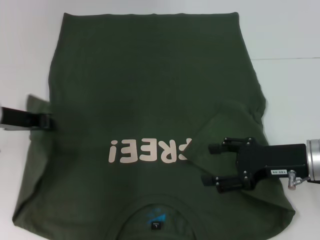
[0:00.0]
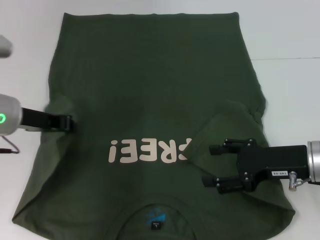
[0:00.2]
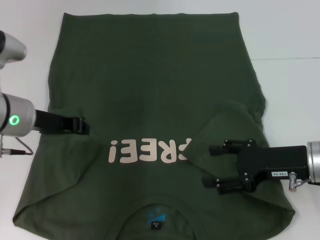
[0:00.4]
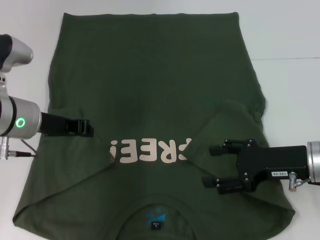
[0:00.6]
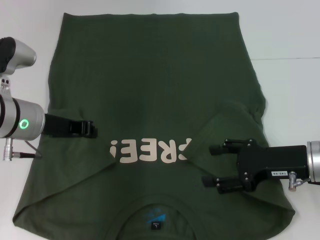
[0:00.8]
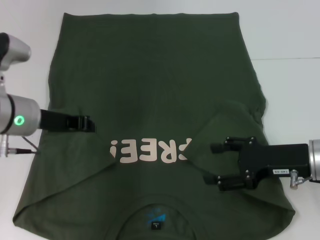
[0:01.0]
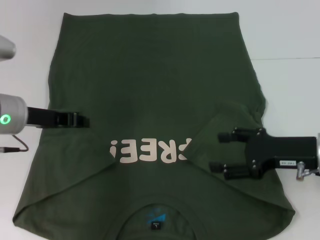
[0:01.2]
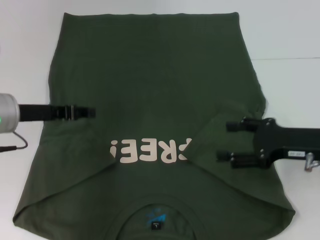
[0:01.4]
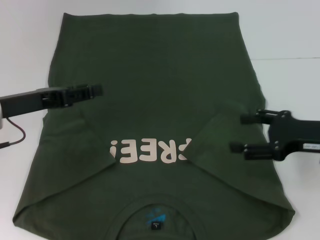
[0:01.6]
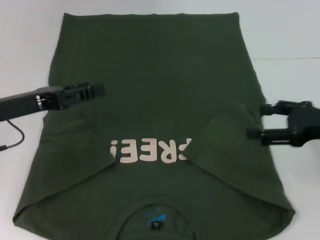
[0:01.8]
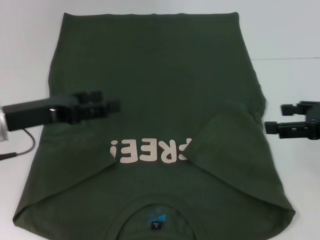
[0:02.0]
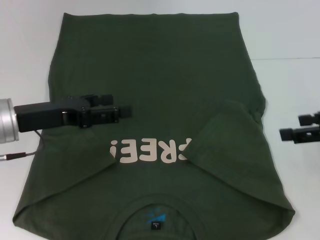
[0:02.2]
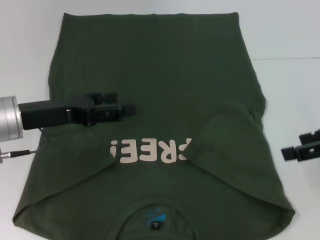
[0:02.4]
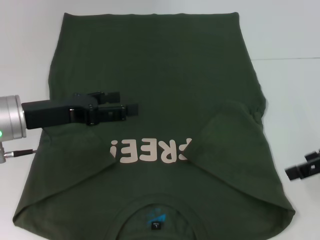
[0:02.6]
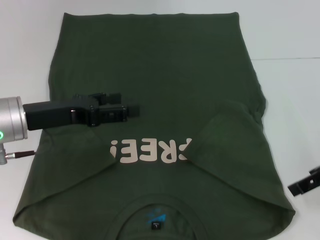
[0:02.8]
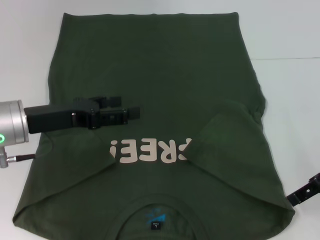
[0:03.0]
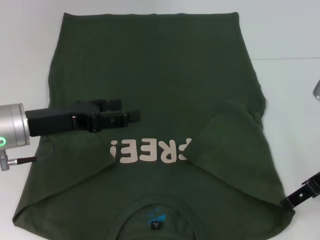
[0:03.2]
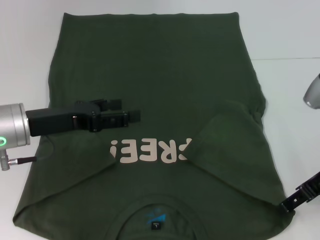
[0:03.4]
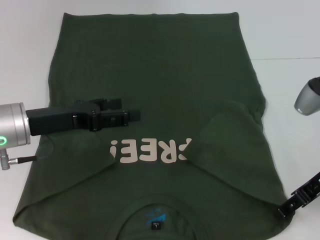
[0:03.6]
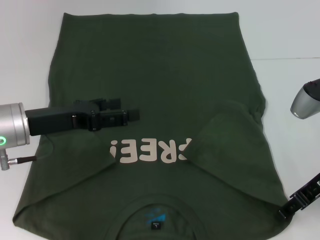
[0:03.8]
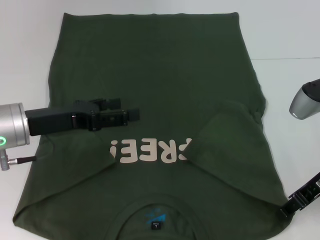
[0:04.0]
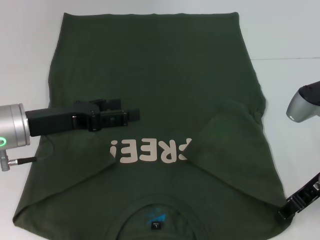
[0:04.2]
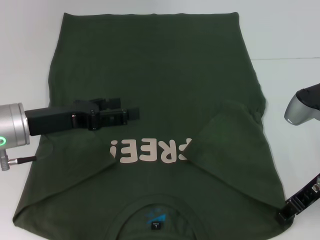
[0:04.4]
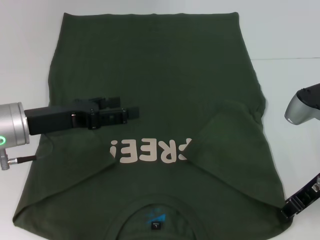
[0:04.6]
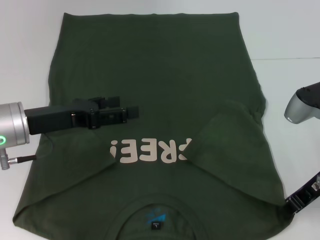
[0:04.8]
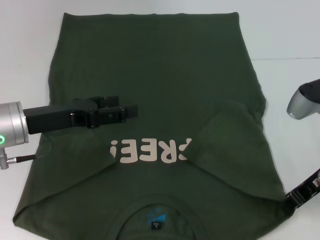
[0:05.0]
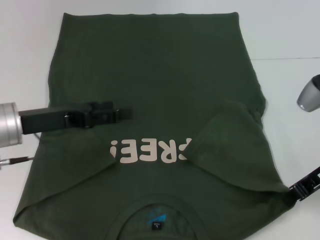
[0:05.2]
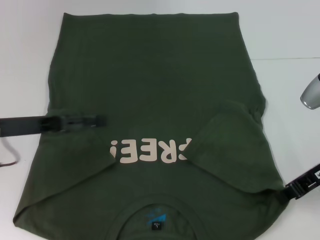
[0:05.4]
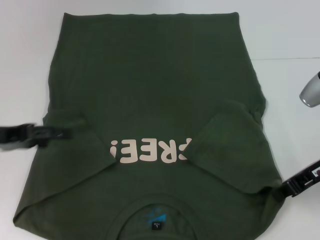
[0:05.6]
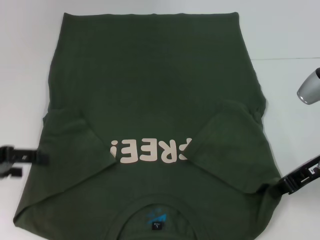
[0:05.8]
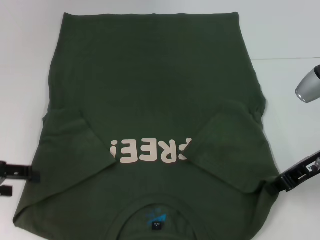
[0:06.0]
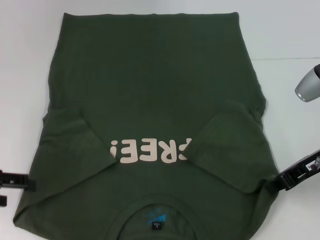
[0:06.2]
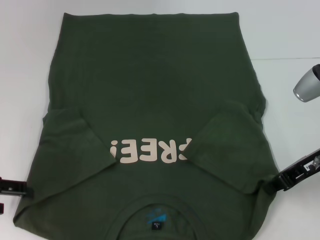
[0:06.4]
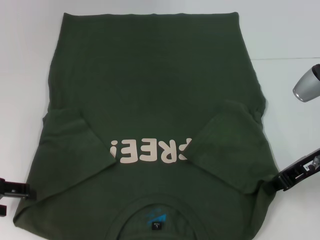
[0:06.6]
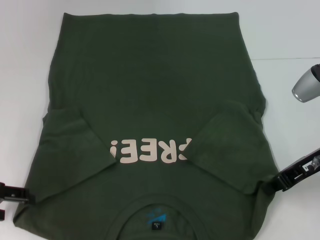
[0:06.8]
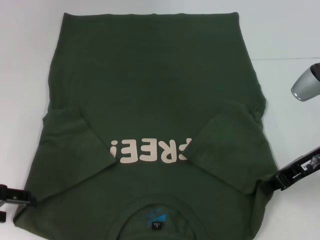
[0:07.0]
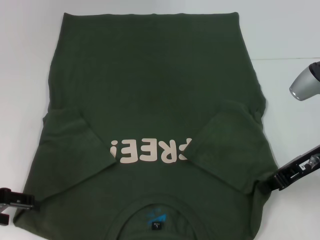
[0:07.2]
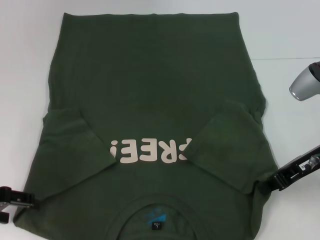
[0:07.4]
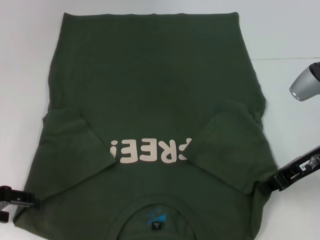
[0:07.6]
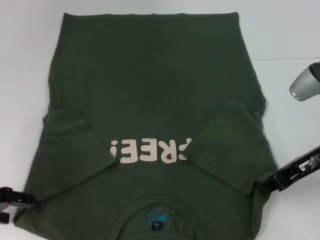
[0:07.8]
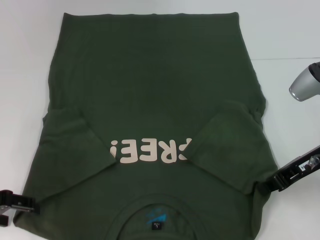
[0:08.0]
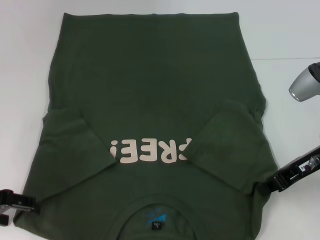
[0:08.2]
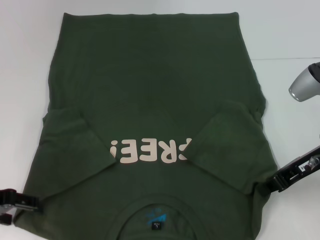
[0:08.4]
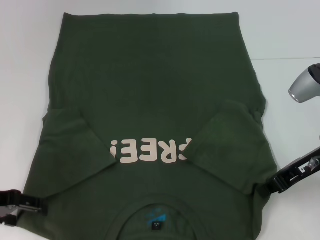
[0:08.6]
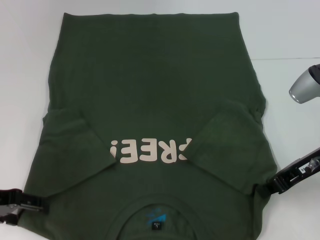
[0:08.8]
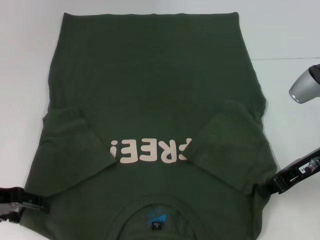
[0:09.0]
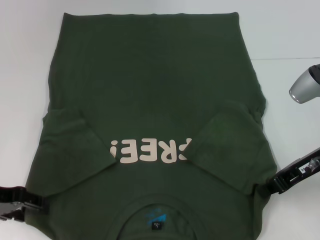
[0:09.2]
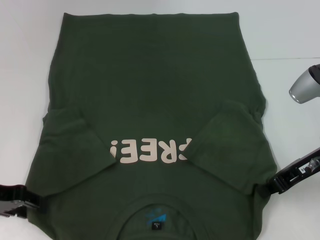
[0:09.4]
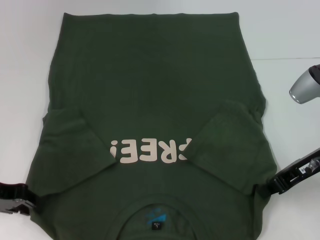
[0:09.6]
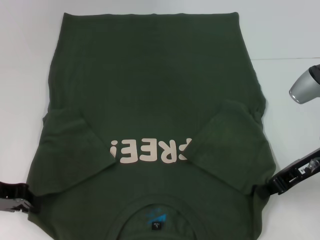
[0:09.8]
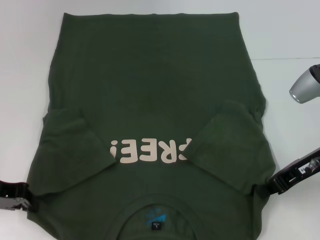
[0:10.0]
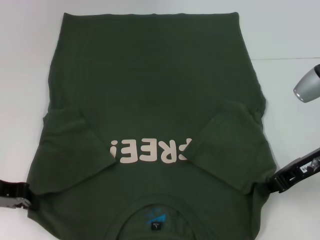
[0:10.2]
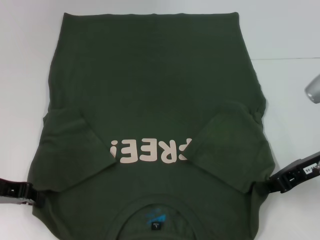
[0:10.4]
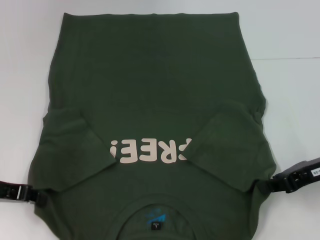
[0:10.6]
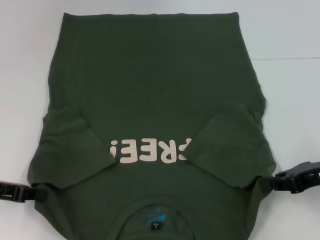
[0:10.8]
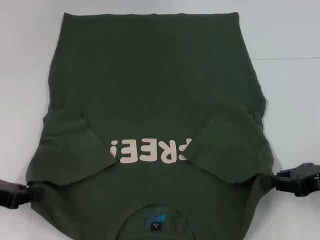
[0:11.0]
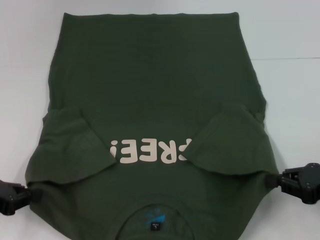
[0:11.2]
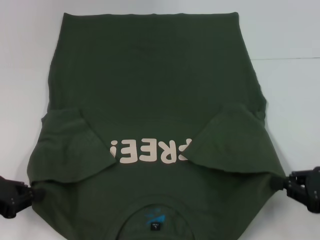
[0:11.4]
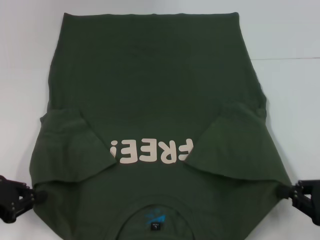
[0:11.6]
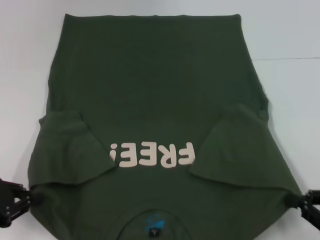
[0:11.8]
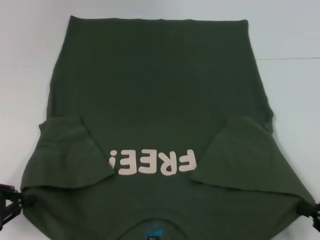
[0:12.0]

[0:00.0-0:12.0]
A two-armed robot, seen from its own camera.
Step, 0:00.8 to 0:05.8: Grab the bottom right corner with your right hand.
Step, 0:06.0 to 0:10.2: Grab the bottom left corner with your left hand.
0:00.0 to 0:01.6: The right gripper moves roughly 5 cm.
0:01.6 to 0:03.0: The left gripper opens. The right gripper heads upward, covering approximately 5 cm.
0:03.0 to 0:04.4: The right gripper changes place by some 5 cm, and closes.
0:04.4 to 0:06.0: The right gripper closes, while the left gripper goes approximately 10 cm to the left.
0:06.0 to 0:09.0: The grippers move only a little.
0:09.0 to 0:10.4: The left gripper closes up.
0:10.4 to 0:12.0: The left gripper heads backward, covering approximately 5 cm. Meanwhile the right gripper is displaced backward, downward and to the right by some 20 cm.

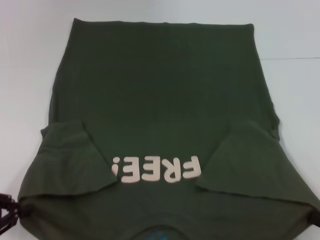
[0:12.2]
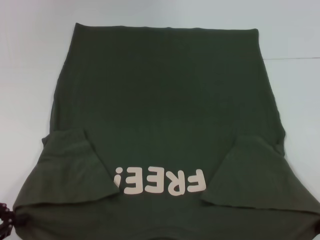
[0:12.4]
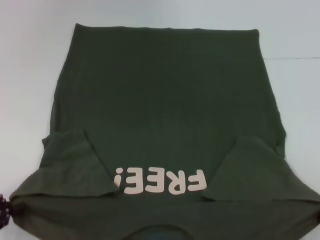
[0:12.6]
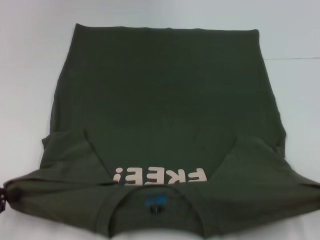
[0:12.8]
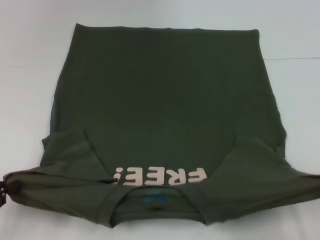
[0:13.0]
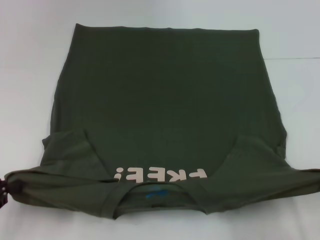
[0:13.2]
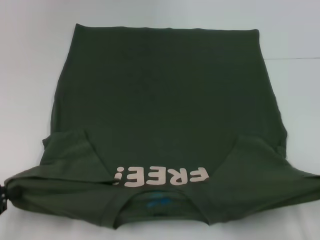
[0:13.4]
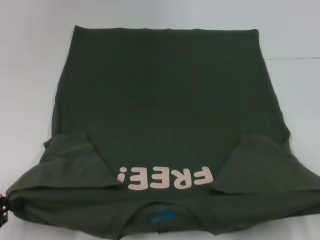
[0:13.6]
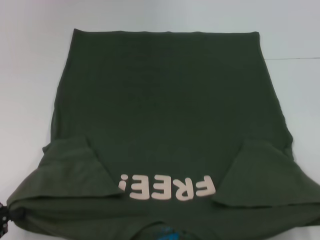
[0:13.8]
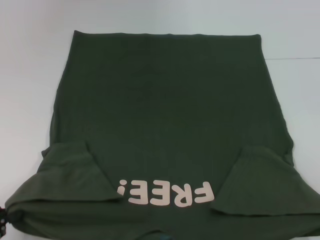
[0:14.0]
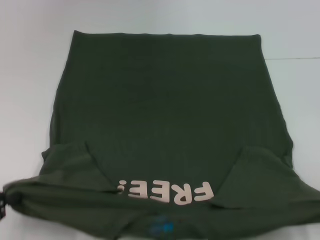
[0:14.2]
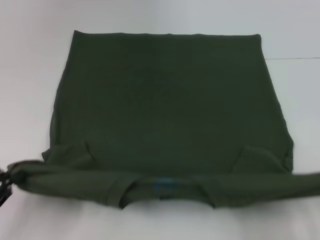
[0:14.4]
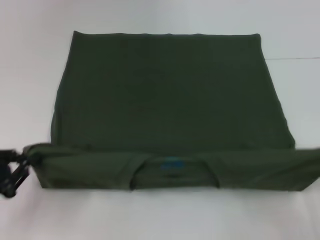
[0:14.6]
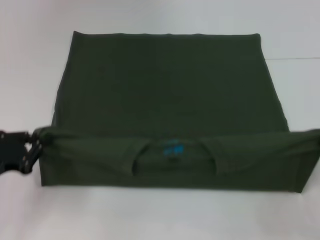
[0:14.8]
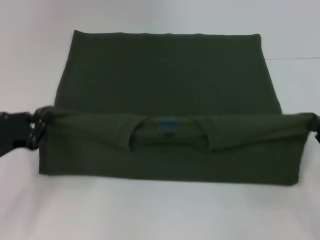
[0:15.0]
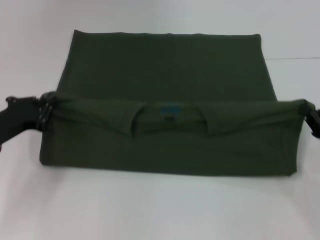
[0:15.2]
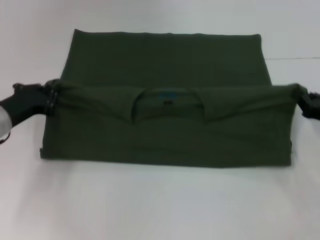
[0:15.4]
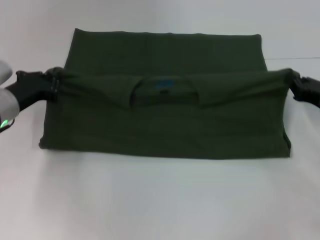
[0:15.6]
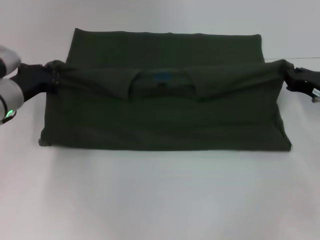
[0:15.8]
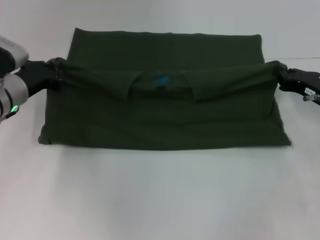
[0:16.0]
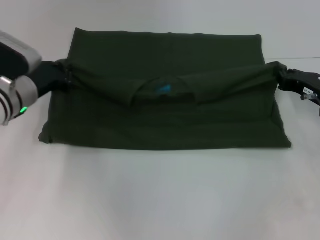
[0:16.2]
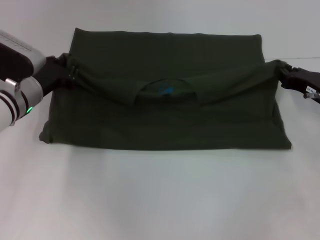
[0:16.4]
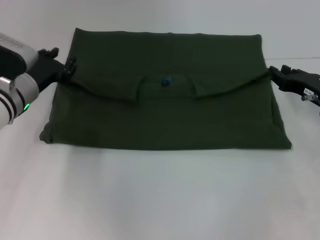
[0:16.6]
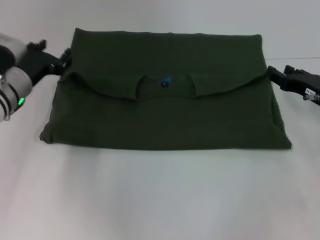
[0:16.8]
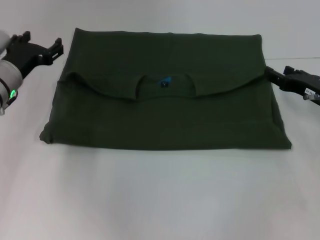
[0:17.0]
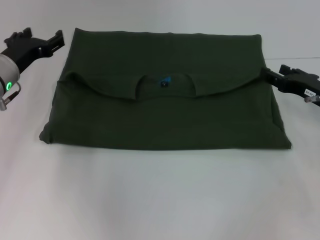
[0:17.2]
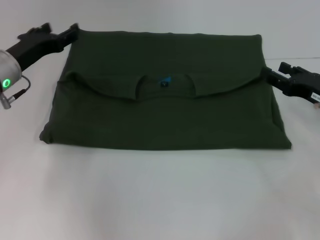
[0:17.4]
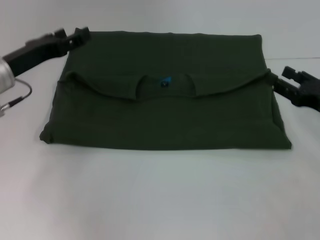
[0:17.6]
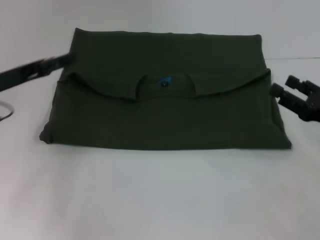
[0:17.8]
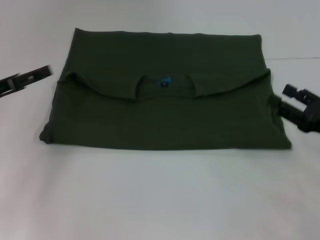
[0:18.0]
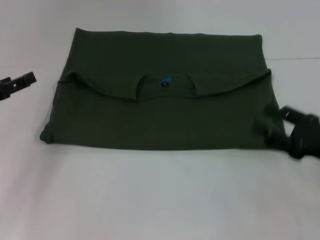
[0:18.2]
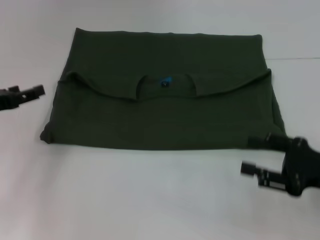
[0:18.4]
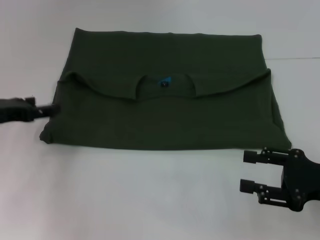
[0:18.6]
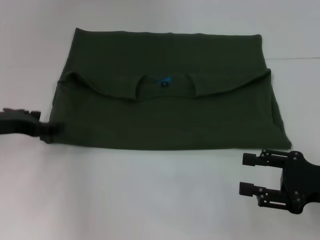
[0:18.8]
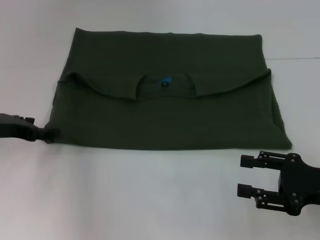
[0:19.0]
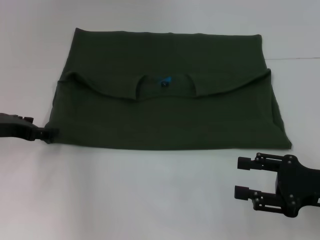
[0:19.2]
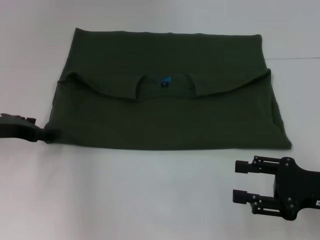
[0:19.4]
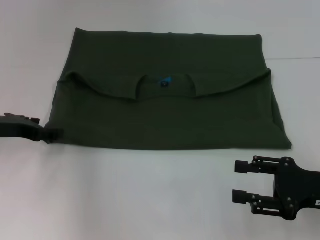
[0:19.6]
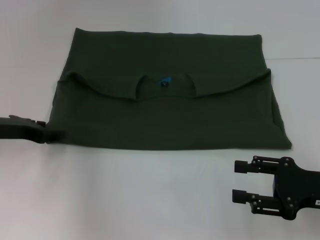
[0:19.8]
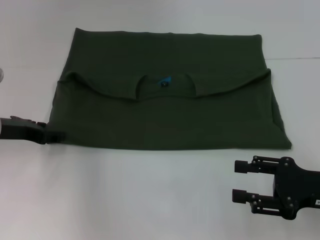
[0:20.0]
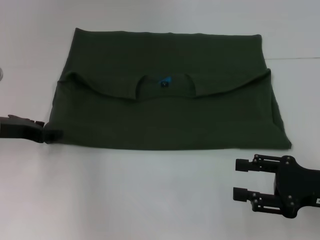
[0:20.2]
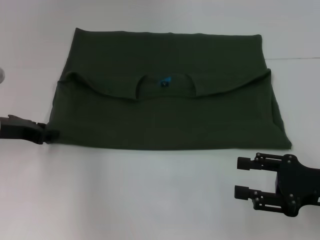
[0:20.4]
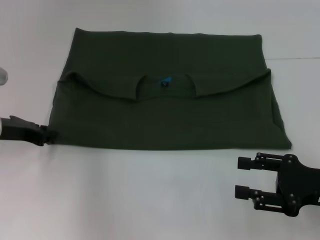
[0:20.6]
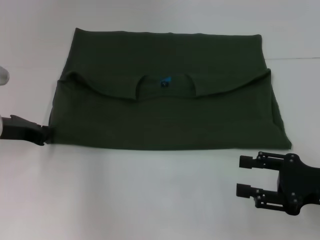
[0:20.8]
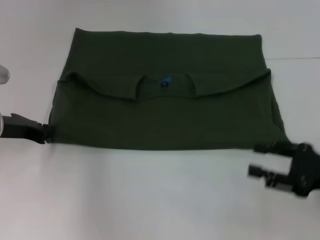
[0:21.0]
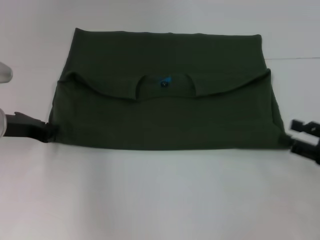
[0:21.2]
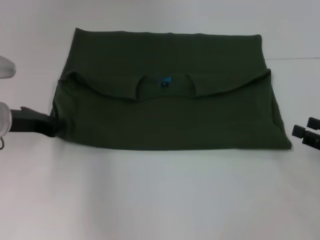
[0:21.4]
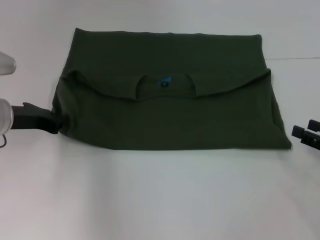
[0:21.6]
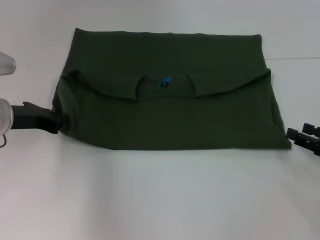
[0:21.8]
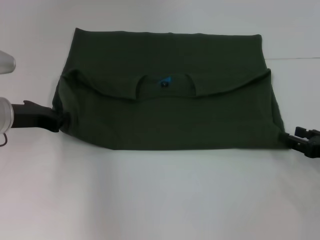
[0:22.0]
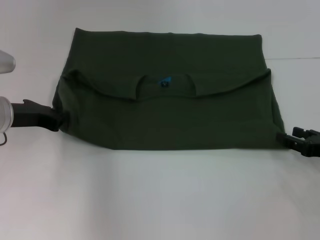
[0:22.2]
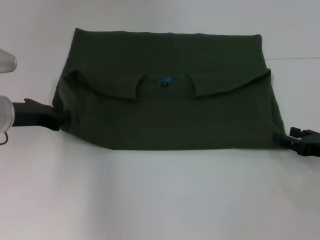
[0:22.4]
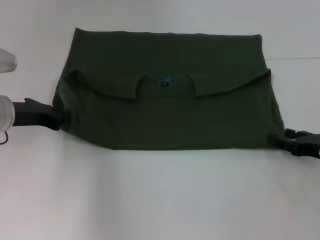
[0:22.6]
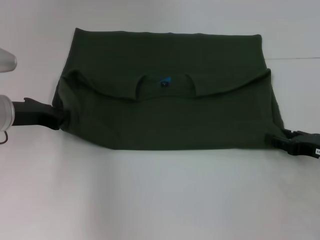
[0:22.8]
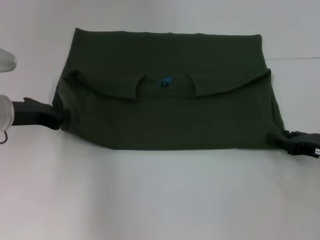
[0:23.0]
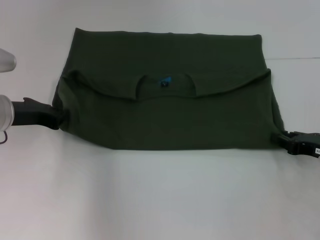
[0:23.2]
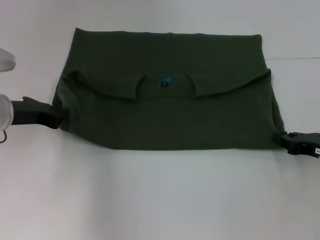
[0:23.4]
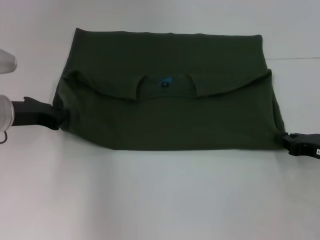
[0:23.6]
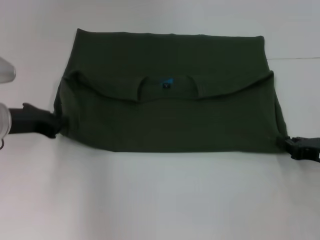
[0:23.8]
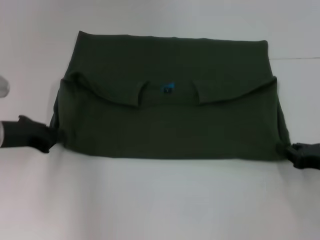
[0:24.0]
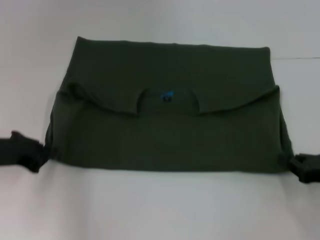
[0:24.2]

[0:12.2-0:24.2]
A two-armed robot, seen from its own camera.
Step, 0:12.2 to 0:17.4: Fold the clothes with your left hand.
Step, 0:12.2 to 0:17.4: Fold the clothes with your right hand.
0:12.2 to 0:13.8: The grippers move only a little.
0:13.8 to 0:15.2: The left gripper is displaced forward and to the right by roughly 15 cm, while the right gripper travels forward by about 20 cm.
0:15.2 to 0:16.6: The left gripper moves forward and to the right, some 10 cm. The right gripper goes roughly 10 cm forward.
0:16.6 to 0:18.2: The right gripper shifts about 10 cm backward, and opens up; the left gripper shifts approximately 15 cm to the left and backward, and opens its fingers.
0:18.2 to 0:19.8: The left gripper moves some 5 cm.
0:19.8 to 0:21.2: The left gripper closes up; the right gripper heads to the right, covering about 5 cm.
0:21.2 to 0:22.6: The right gripper ends up roughly 5 cm from where it was.
0:22.6 to 0:24.2: The right gripper closes; the left gripper moves roughly 5 cm.
